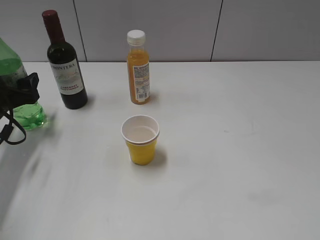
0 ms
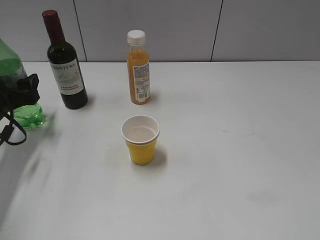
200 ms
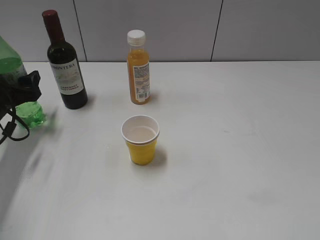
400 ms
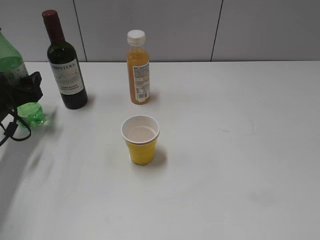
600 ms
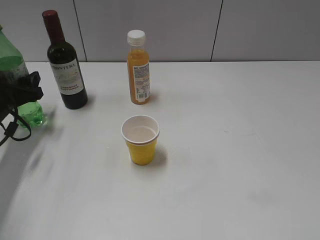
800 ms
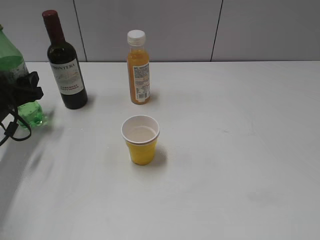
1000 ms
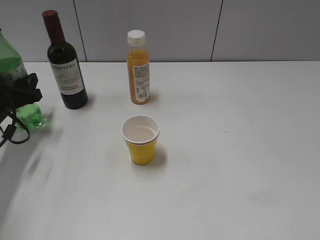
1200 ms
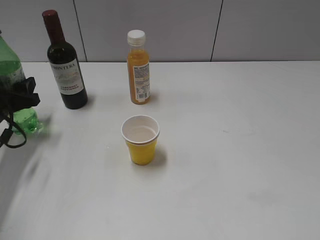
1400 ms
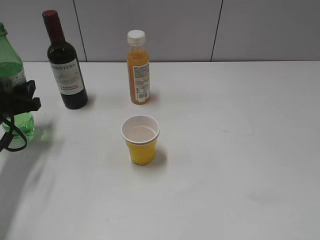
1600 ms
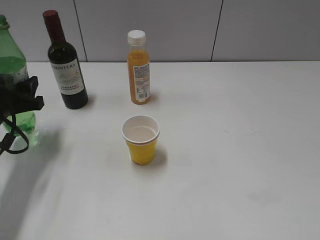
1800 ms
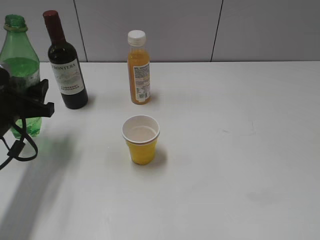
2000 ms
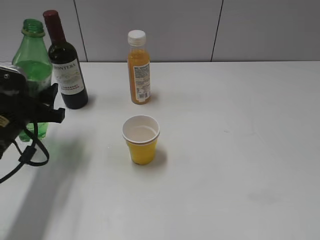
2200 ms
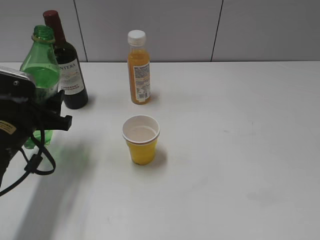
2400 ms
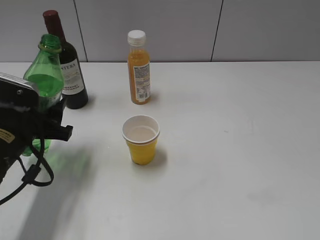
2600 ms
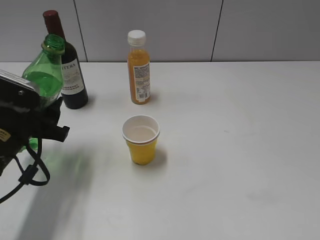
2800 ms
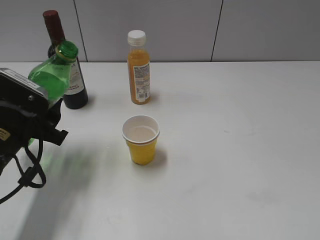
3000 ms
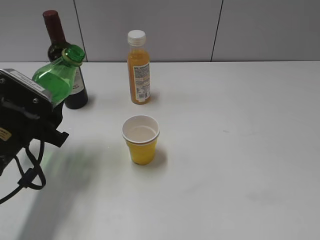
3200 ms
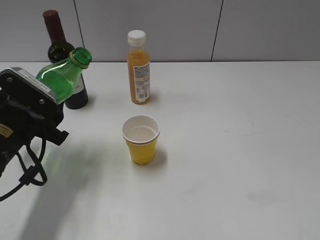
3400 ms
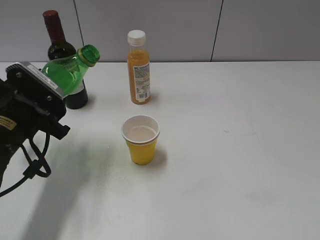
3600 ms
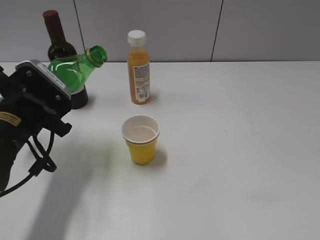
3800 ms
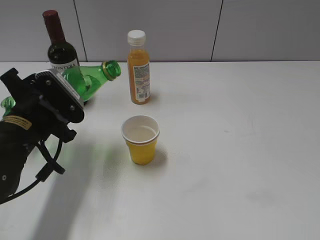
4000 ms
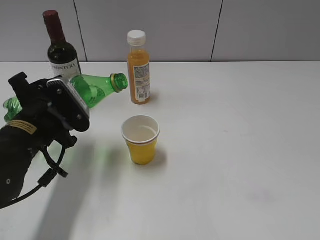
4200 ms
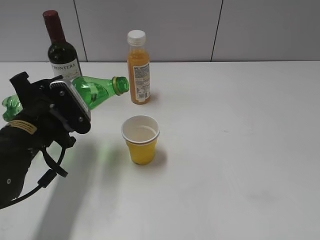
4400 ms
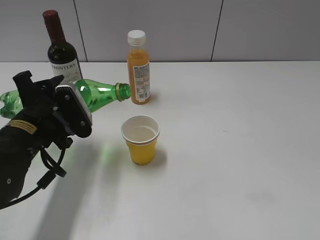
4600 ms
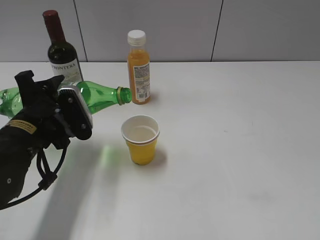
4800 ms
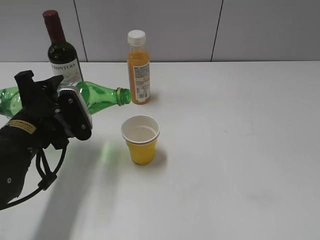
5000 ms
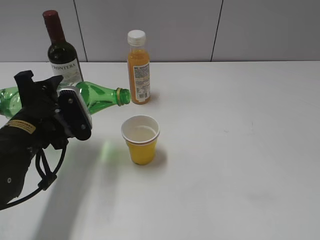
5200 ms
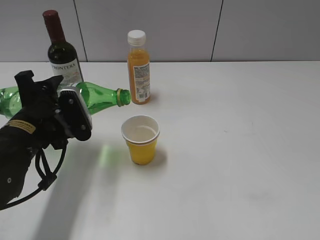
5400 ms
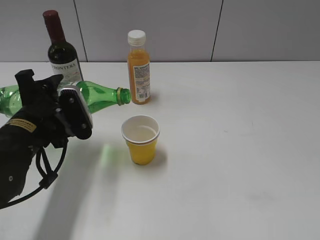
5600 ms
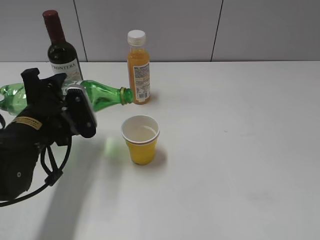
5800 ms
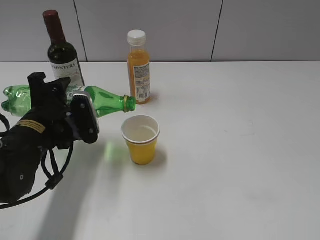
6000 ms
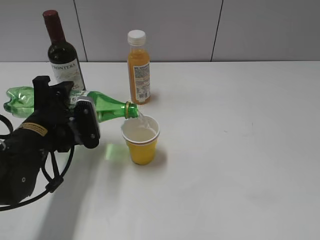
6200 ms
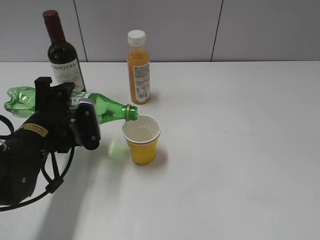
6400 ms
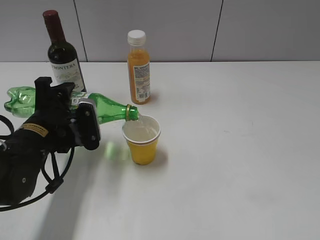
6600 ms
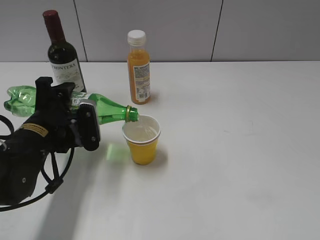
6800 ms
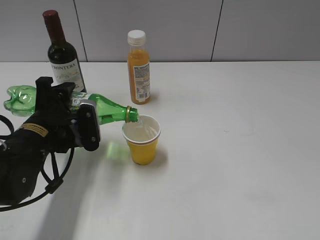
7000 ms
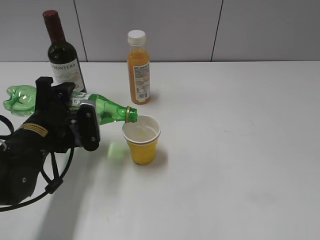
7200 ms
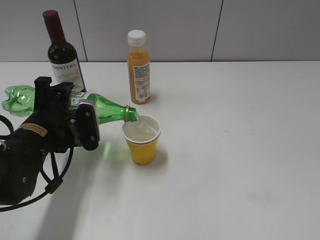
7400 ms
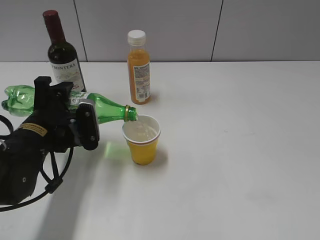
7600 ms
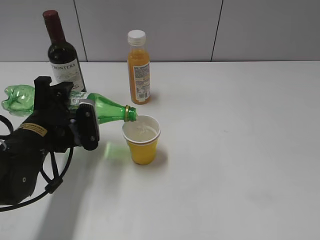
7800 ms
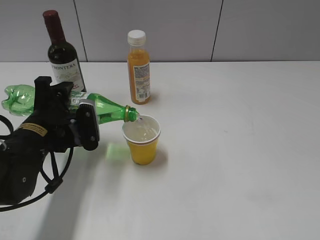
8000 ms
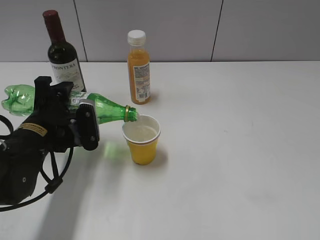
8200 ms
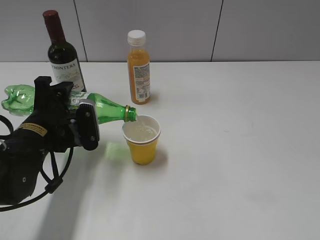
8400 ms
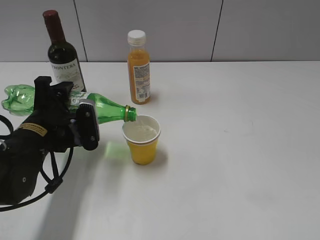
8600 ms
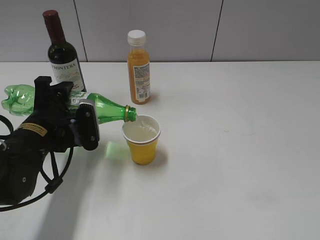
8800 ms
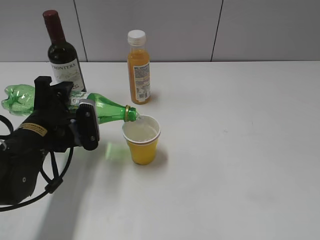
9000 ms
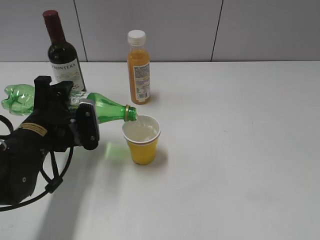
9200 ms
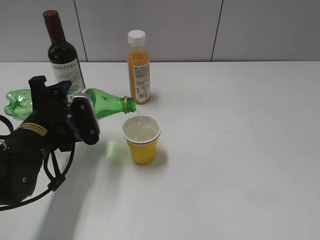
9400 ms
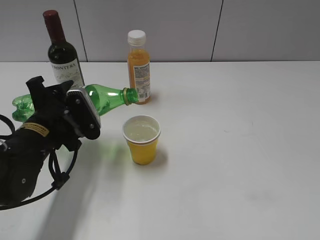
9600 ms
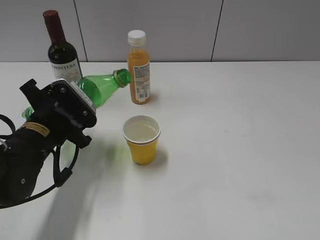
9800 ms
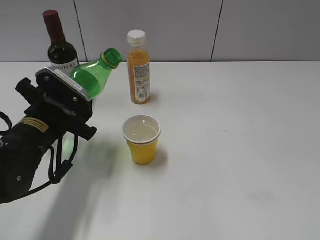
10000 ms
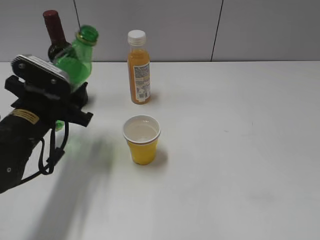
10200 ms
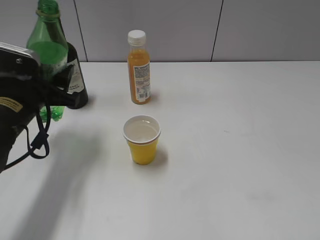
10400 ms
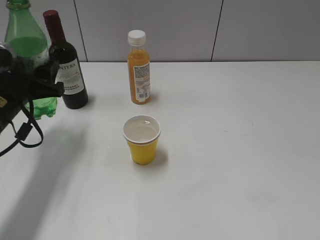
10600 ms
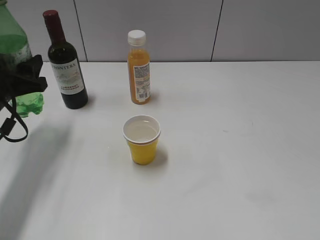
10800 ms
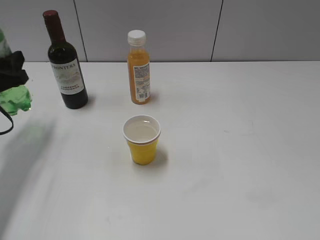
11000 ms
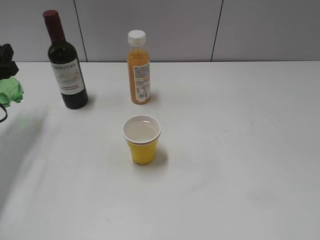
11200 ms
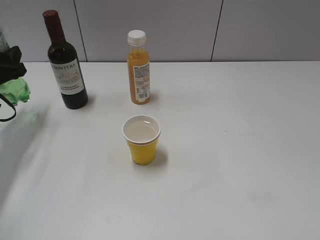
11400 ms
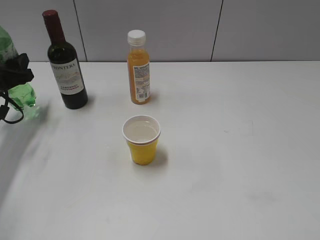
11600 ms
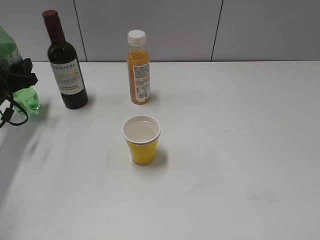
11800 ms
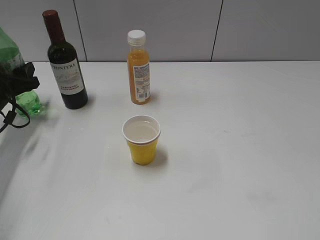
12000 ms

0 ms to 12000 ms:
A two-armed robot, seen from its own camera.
Step, 1400 ms to 9600 ms: Pour the sprite from bottle to cup with left gripper.
0 ms to 1600 ms: The left gripper closes up.
1600 ms to 3000 ms: The left gripper moves to the right and backward, roughly 10 cm.
4400 ms to 6000 ms: The grippers make only small movements.
6000 ms to 7600 ms: The grippers stay close to where they were, moving slightly.
7600 ms to 9000 ms: Neither gripper changes place.
10400 ms to 12000 ms: The left gripper moves to the left, forward and downward, some 15 cm.

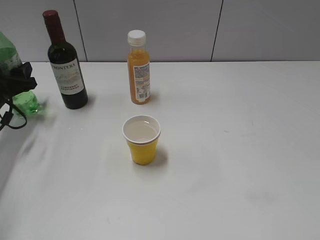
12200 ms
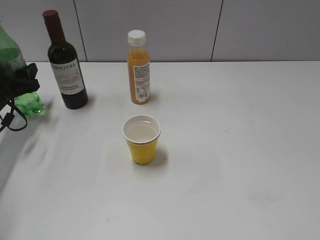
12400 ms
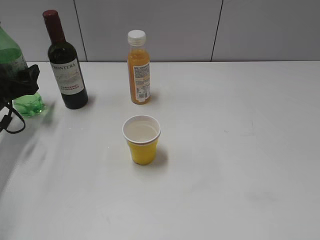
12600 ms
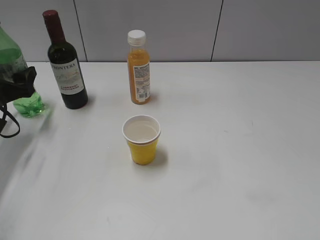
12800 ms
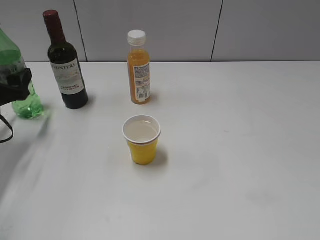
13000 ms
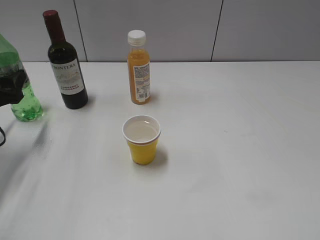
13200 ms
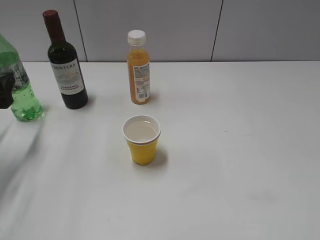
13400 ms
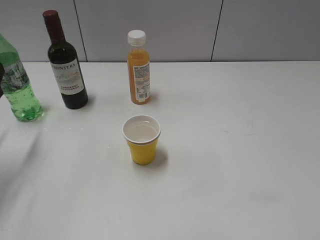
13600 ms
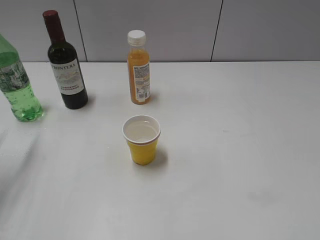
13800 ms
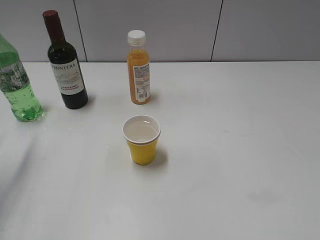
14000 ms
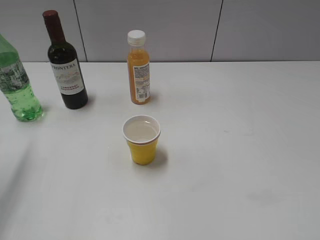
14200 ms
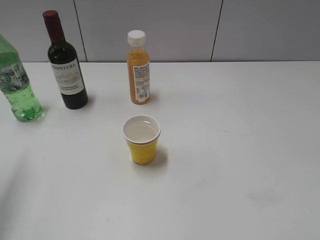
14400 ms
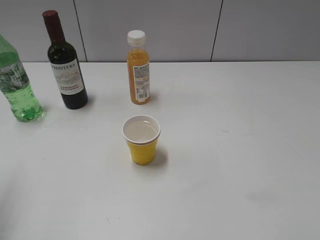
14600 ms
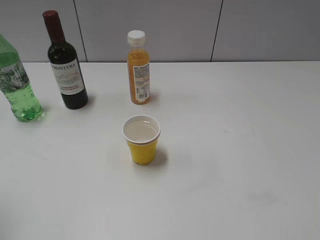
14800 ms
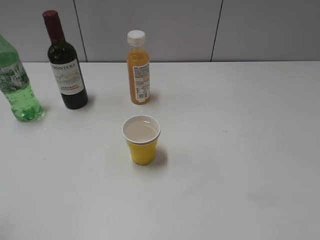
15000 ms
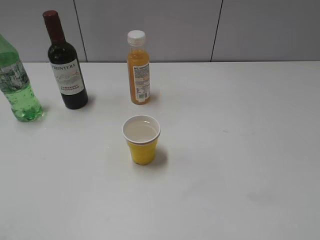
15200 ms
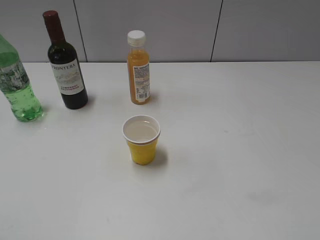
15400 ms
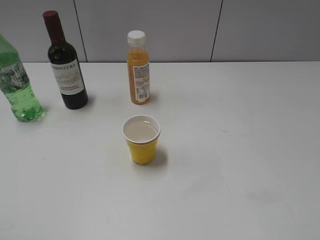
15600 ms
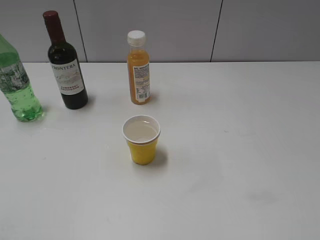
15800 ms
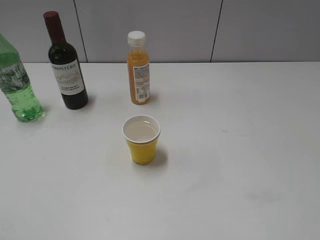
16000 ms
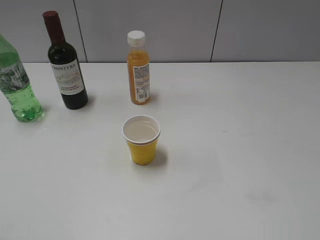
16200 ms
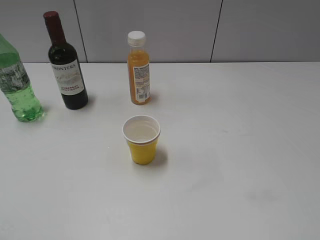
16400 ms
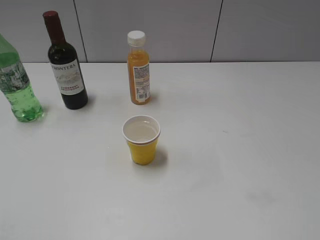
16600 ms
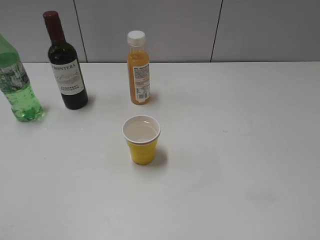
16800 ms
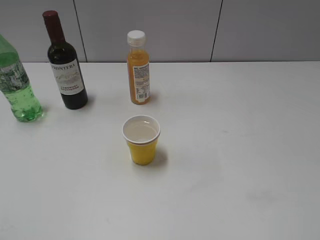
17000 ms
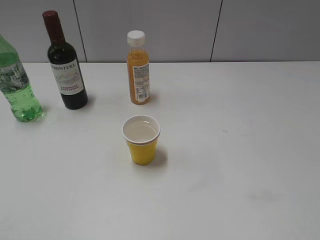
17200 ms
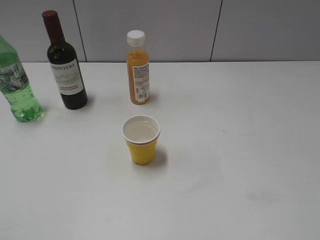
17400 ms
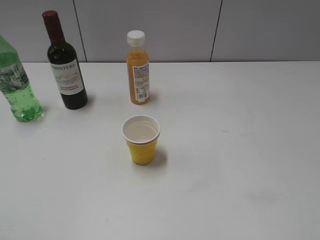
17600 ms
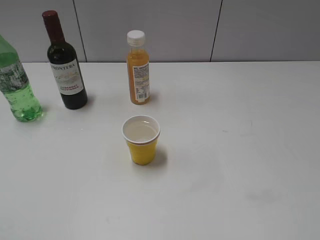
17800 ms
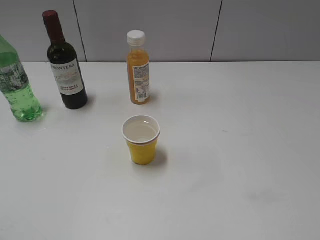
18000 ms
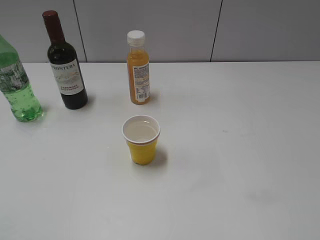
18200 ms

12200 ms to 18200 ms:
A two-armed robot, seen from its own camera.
12200 ms to 13800 ms: The left gripper shifts roughly 15 cm backward and upward.
13800 ms to 15200 ms: The left gripper shifts roughly 25 cm backward and upward.

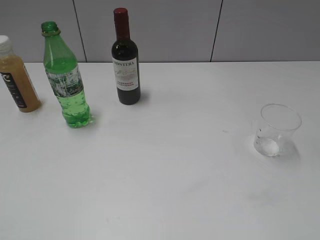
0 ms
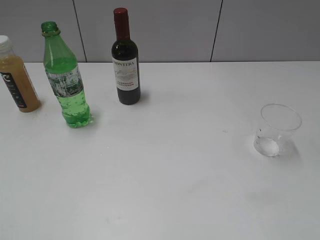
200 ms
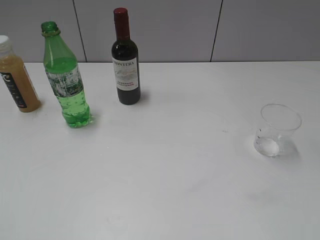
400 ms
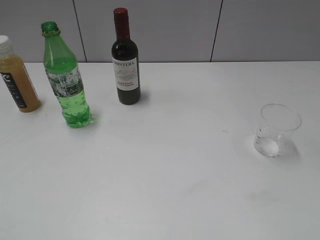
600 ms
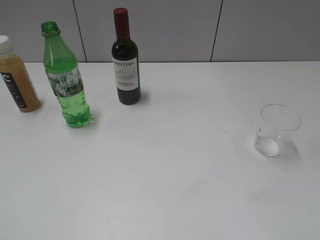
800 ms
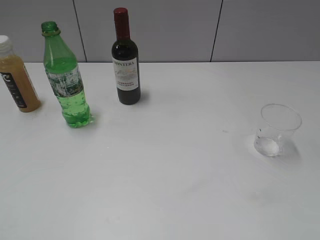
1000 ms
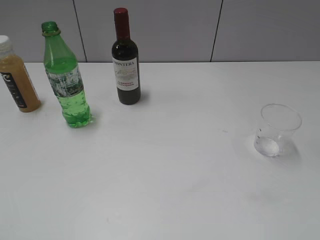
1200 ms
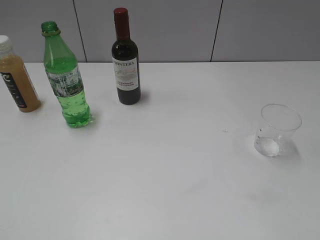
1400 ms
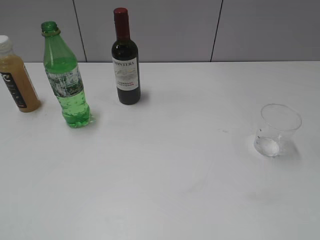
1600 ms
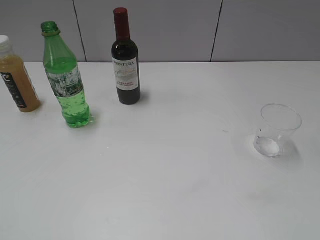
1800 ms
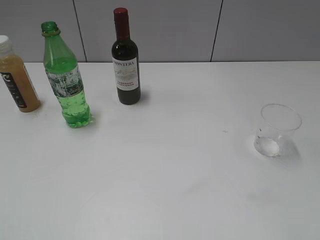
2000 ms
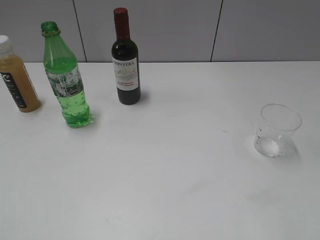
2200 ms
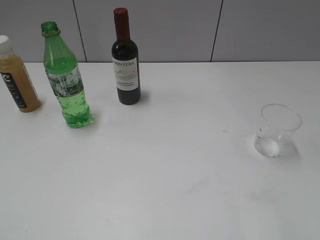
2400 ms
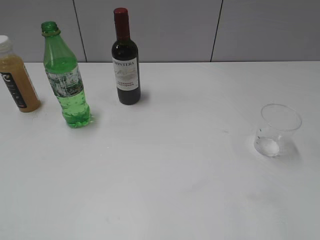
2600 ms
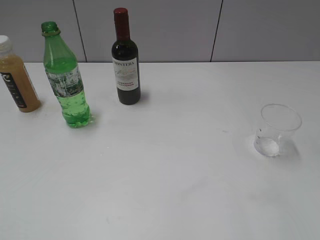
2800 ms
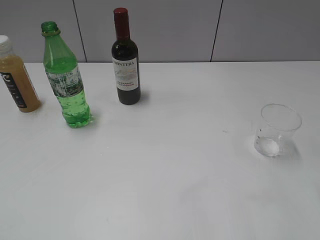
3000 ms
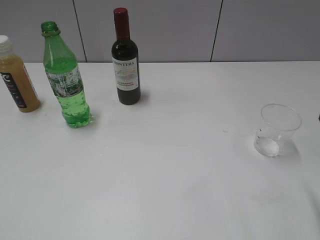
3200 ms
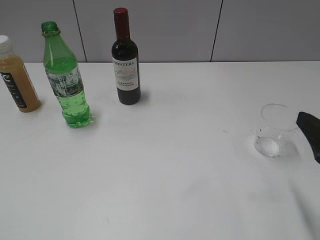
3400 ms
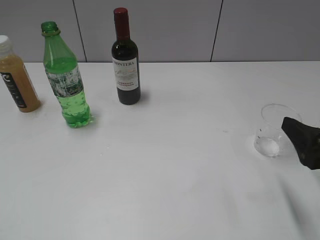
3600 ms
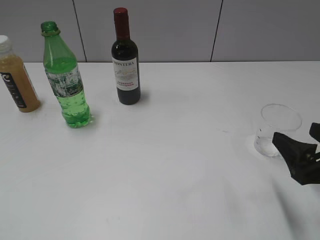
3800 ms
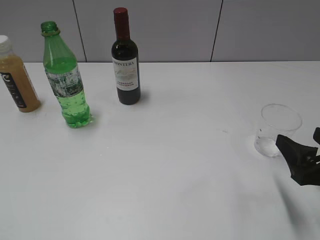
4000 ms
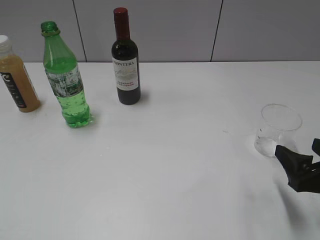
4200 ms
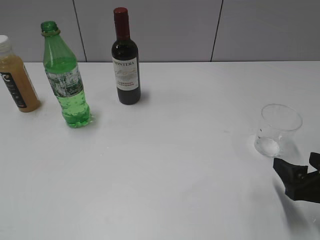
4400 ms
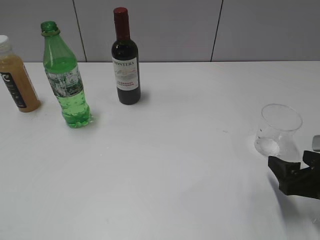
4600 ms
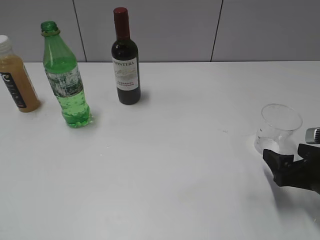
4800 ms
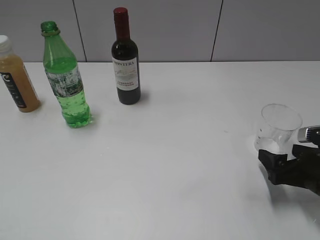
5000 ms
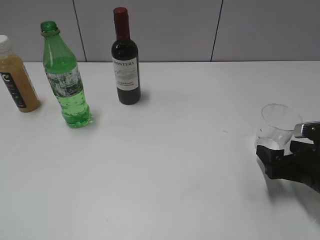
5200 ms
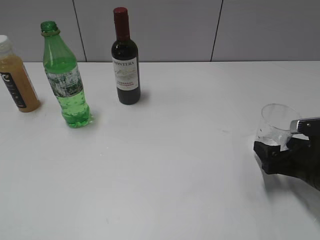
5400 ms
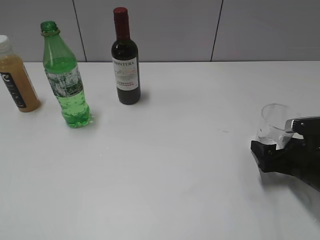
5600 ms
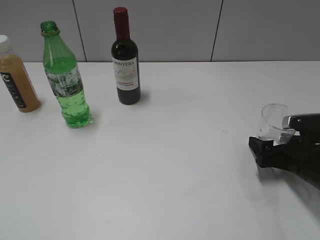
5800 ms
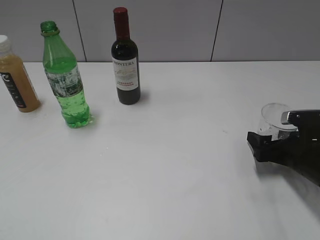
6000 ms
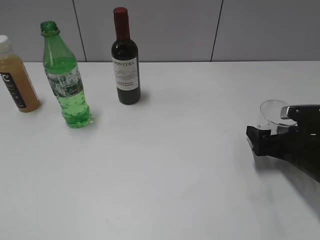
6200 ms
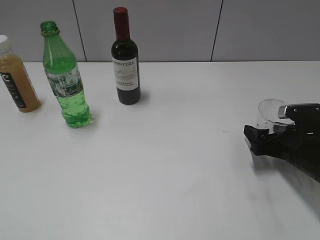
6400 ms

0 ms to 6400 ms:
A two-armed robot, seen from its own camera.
3200 ms to 4800 ms: The right gripper goes approximately 15 cm downward and forward.
4800 ms to 6400 ms: The right gripper heads forward, covering about 10 cm.
